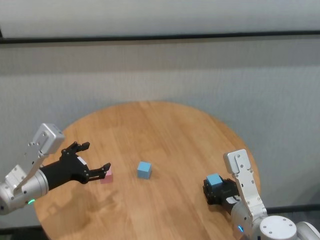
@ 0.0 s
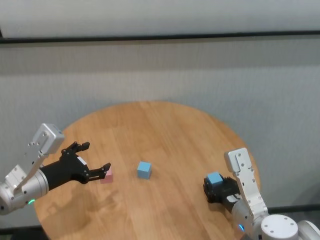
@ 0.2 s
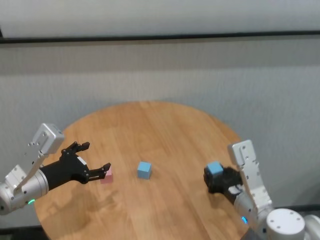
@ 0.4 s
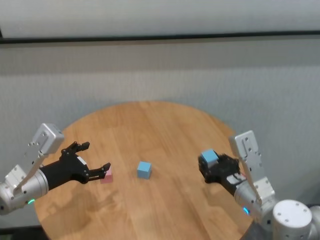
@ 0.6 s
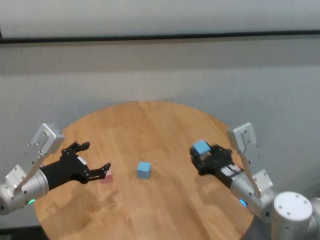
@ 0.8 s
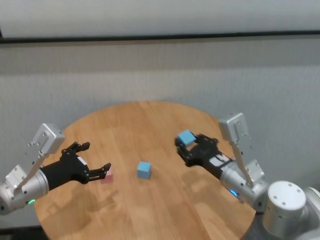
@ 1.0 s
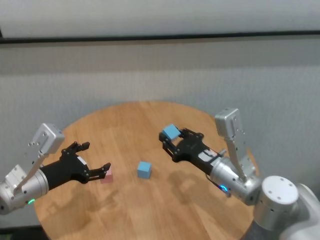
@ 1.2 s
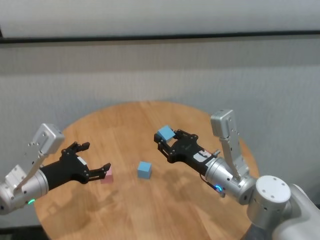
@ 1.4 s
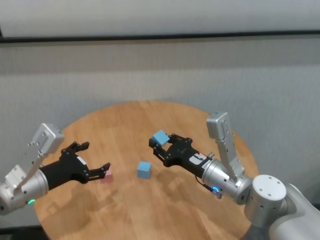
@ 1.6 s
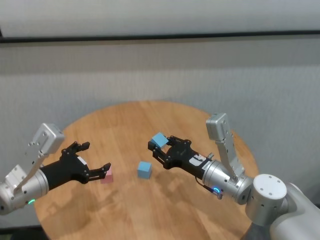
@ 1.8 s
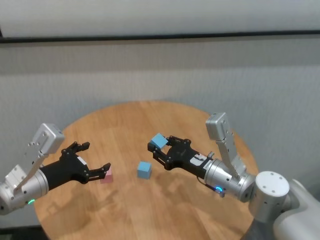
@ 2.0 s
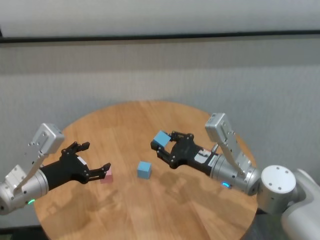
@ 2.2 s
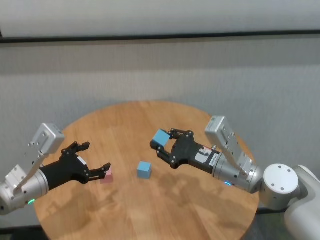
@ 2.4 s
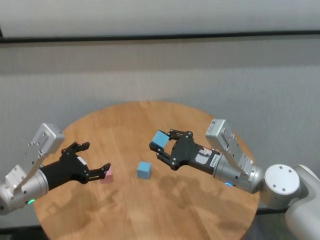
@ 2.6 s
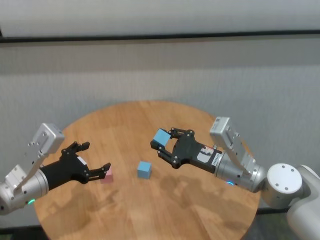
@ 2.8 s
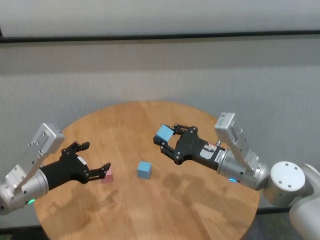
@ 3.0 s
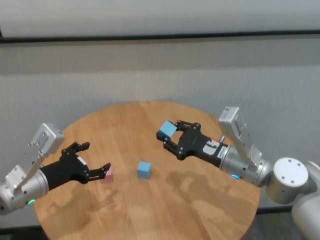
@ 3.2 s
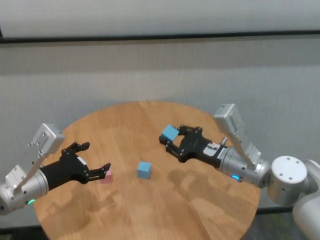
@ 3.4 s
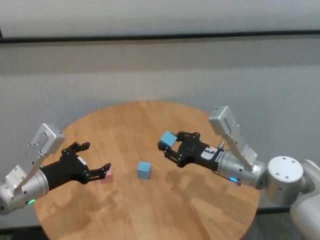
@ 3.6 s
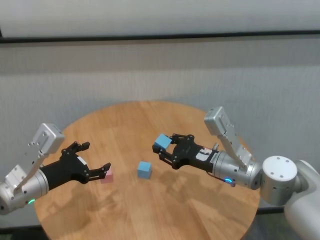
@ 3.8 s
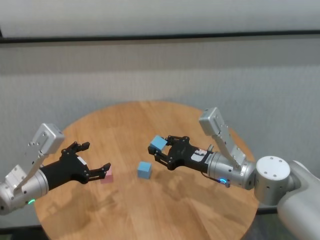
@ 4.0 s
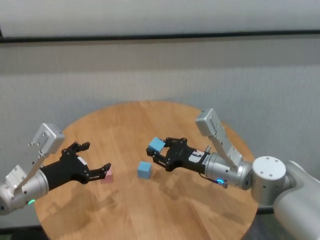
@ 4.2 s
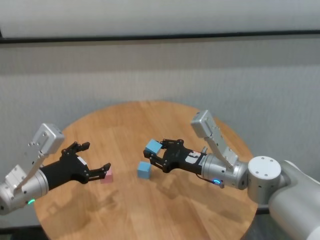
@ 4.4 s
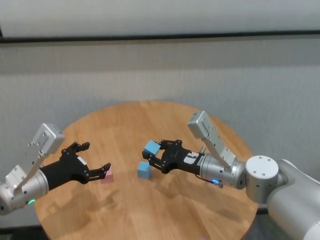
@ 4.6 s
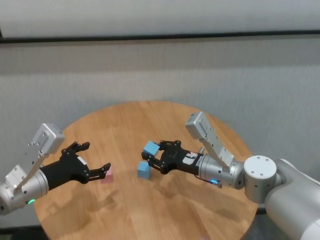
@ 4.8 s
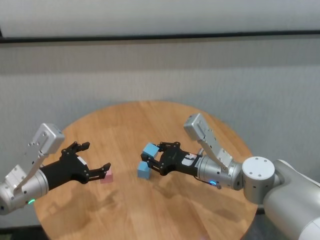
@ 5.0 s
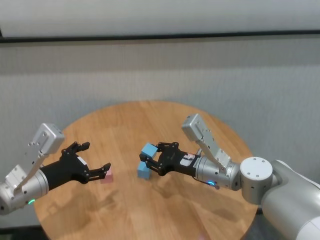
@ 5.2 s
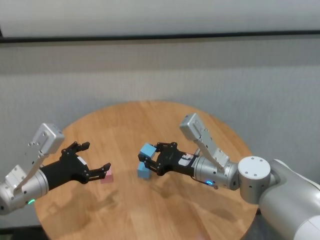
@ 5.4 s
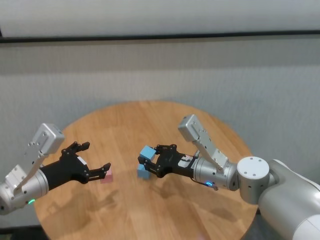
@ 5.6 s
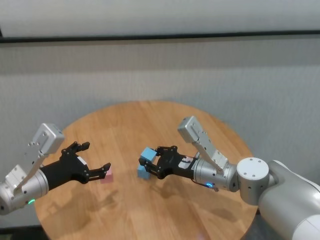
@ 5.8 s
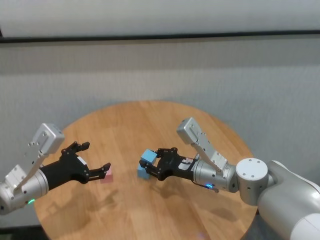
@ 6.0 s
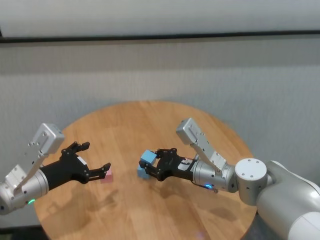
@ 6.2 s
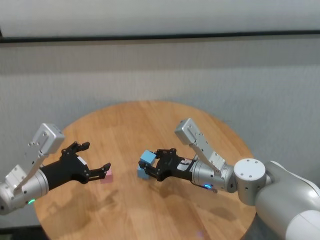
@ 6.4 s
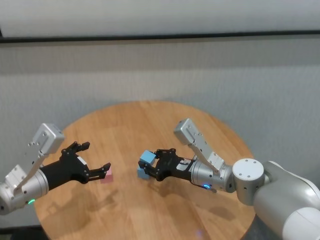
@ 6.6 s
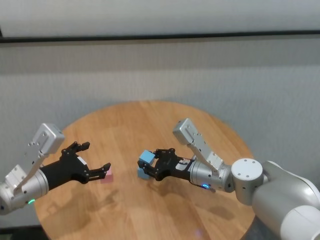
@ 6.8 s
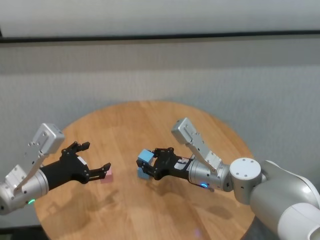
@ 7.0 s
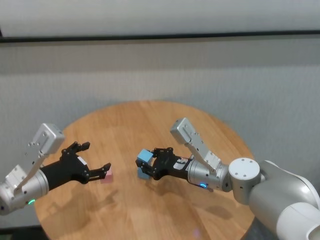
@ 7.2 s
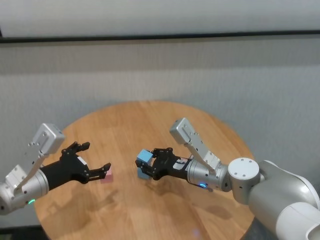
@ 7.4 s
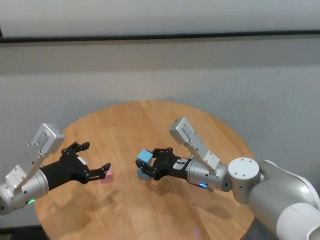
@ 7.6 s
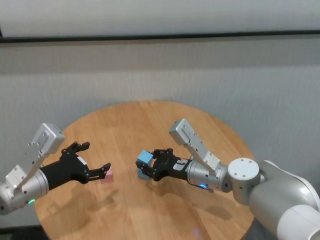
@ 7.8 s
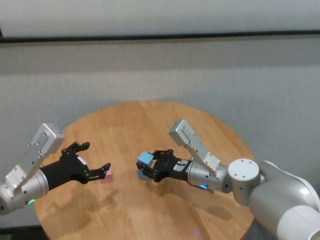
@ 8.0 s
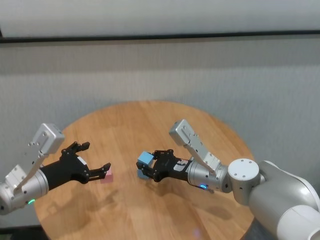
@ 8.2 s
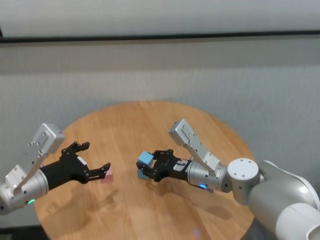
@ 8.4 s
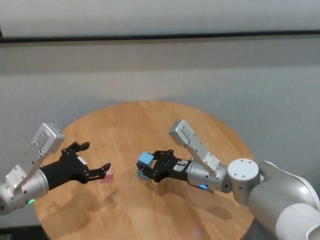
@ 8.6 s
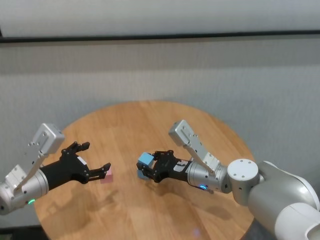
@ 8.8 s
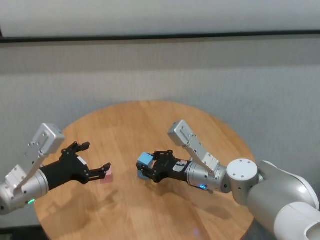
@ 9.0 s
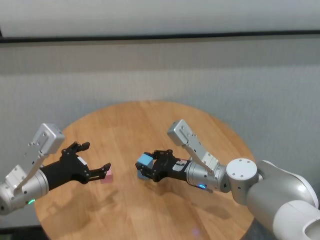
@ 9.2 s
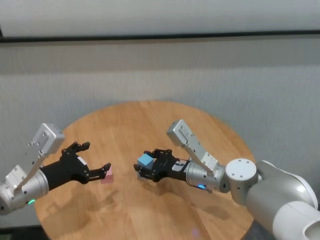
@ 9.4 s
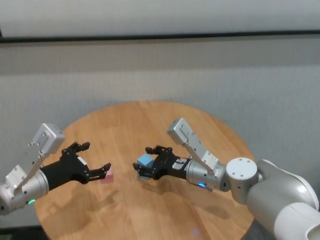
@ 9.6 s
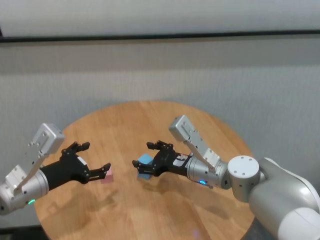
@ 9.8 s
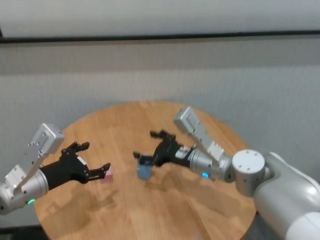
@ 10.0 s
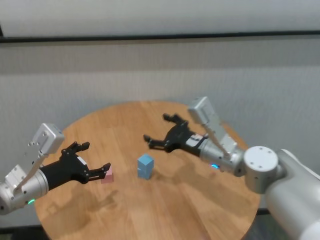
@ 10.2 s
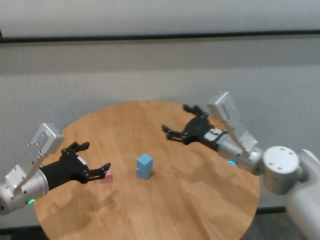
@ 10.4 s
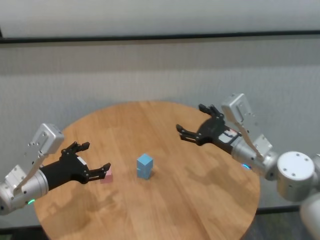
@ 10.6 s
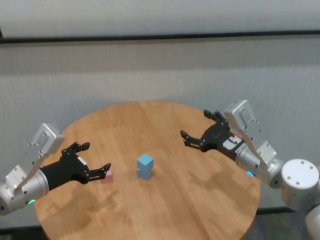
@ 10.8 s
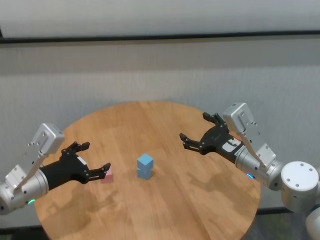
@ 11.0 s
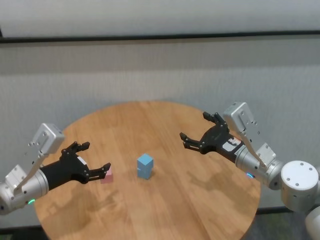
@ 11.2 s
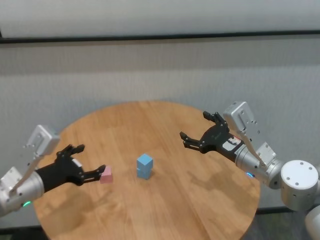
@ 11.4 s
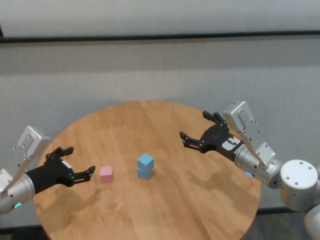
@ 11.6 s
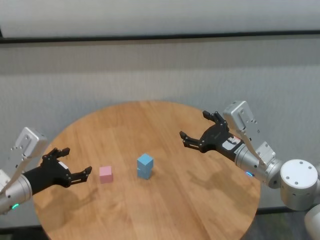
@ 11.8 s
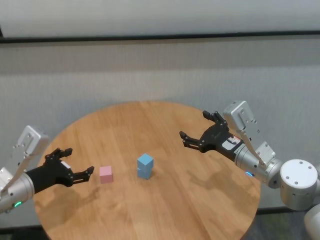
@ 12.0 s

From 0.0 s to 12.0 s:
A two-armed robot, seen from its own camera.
Task of the whole recording: stack building blocks on the table.
Step, from 0.0 s to 9.6 s: Place the blue building block on the blue building blocks with right gripper.

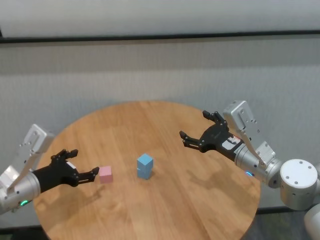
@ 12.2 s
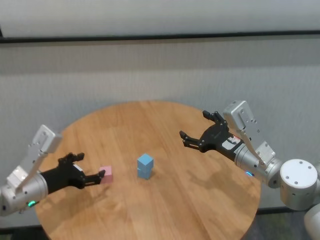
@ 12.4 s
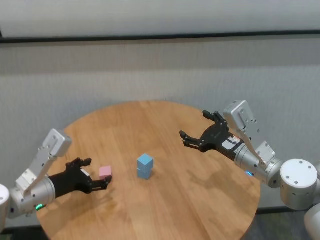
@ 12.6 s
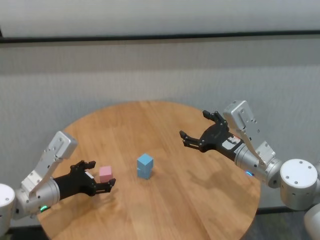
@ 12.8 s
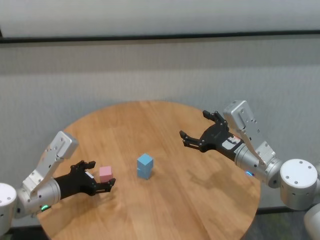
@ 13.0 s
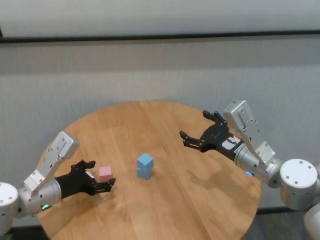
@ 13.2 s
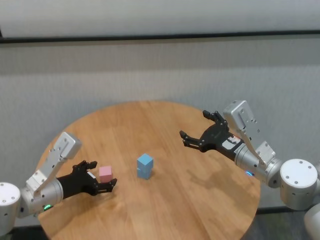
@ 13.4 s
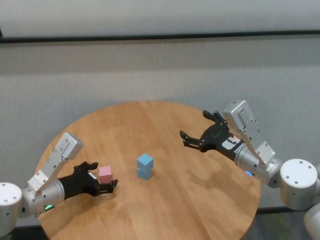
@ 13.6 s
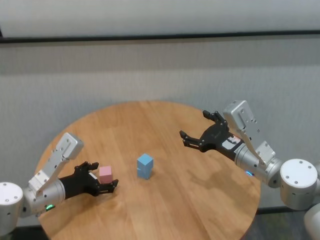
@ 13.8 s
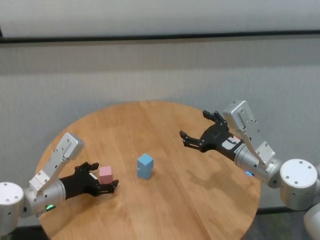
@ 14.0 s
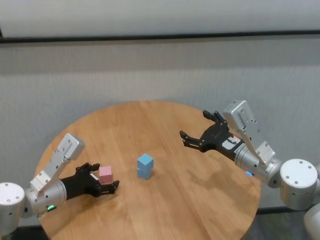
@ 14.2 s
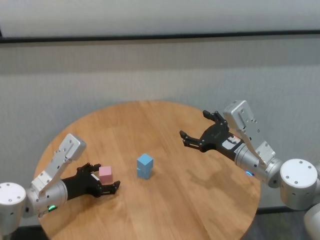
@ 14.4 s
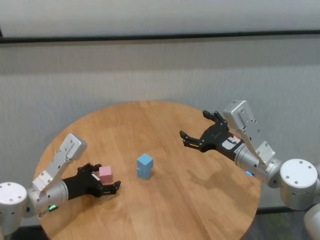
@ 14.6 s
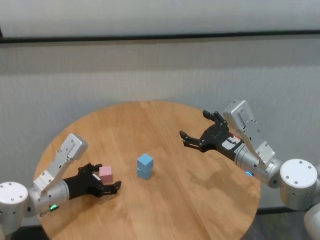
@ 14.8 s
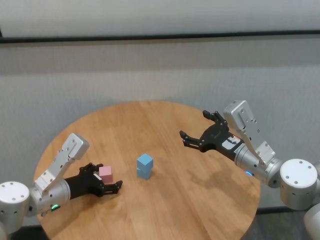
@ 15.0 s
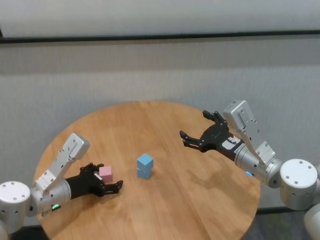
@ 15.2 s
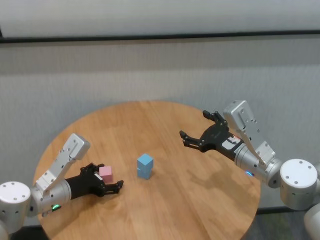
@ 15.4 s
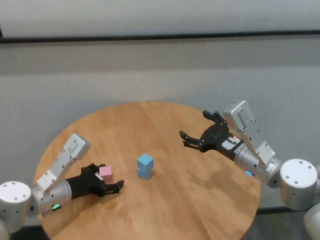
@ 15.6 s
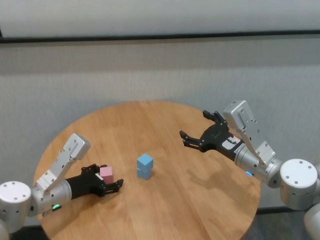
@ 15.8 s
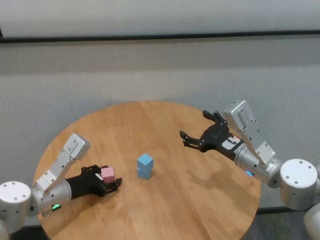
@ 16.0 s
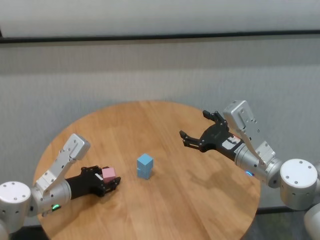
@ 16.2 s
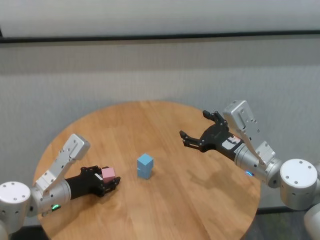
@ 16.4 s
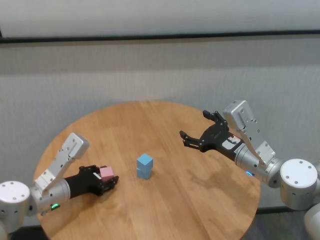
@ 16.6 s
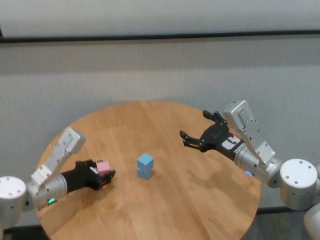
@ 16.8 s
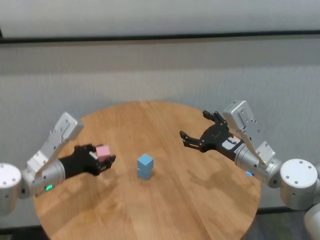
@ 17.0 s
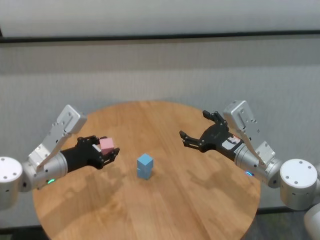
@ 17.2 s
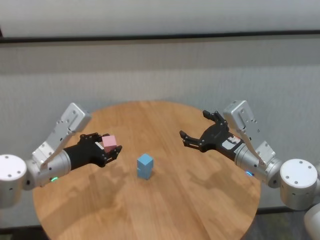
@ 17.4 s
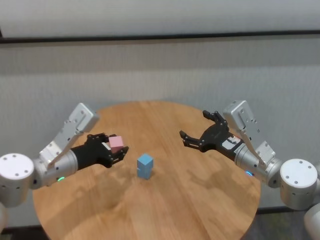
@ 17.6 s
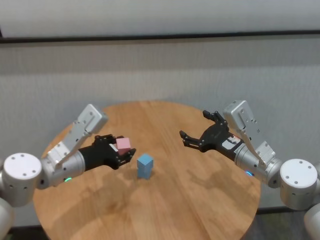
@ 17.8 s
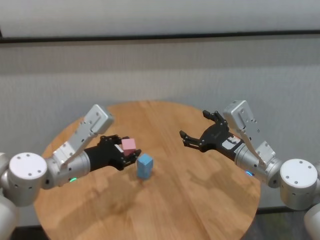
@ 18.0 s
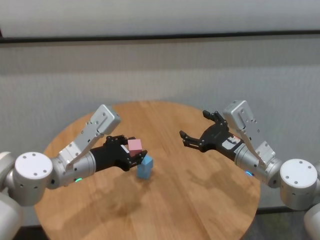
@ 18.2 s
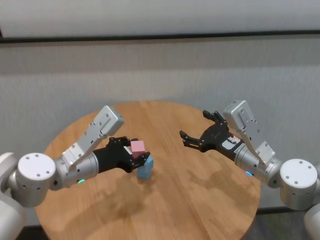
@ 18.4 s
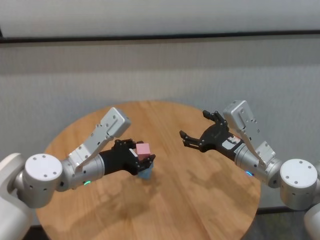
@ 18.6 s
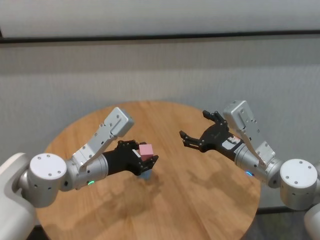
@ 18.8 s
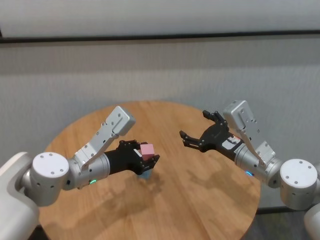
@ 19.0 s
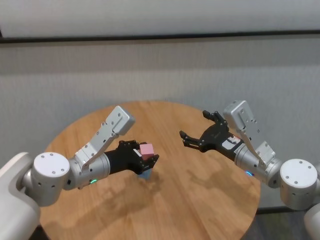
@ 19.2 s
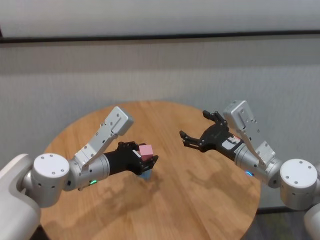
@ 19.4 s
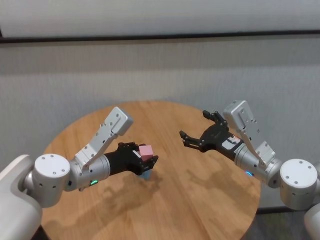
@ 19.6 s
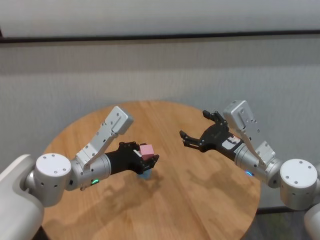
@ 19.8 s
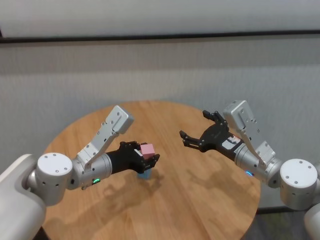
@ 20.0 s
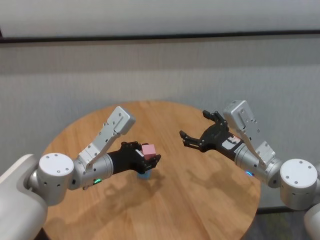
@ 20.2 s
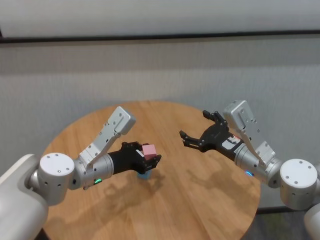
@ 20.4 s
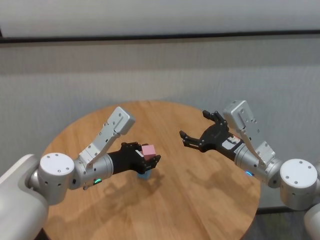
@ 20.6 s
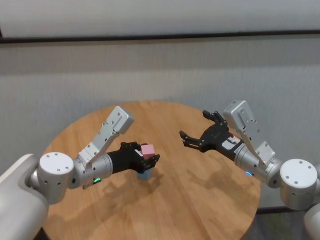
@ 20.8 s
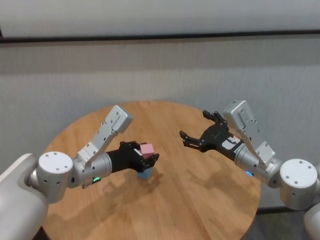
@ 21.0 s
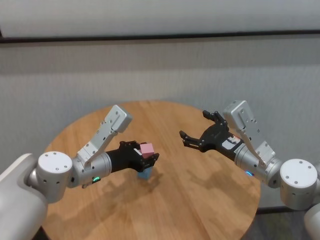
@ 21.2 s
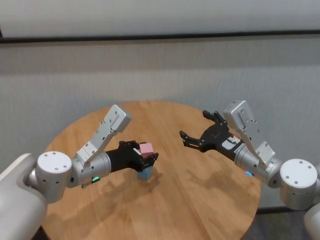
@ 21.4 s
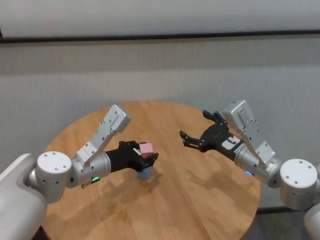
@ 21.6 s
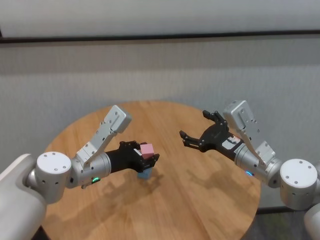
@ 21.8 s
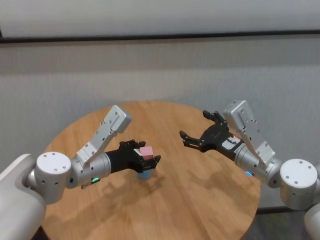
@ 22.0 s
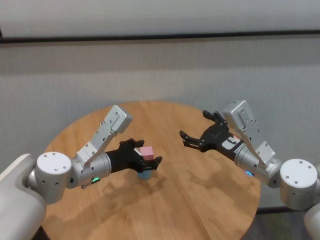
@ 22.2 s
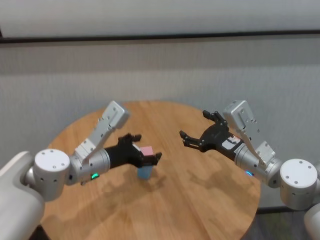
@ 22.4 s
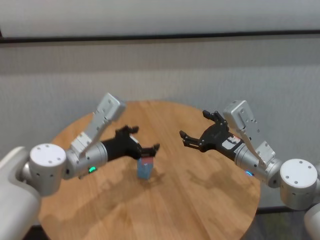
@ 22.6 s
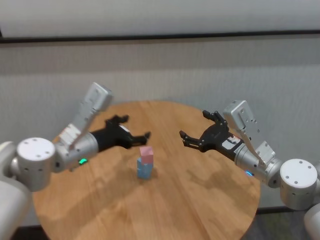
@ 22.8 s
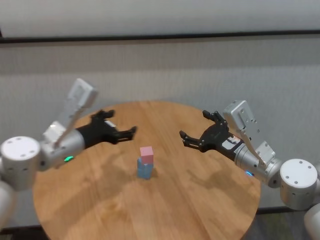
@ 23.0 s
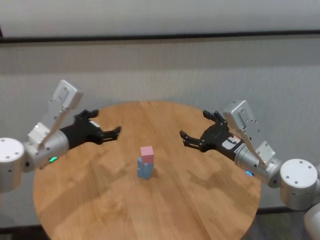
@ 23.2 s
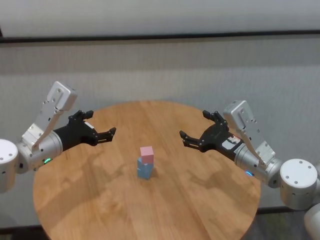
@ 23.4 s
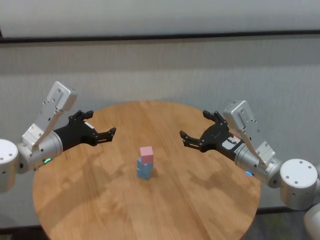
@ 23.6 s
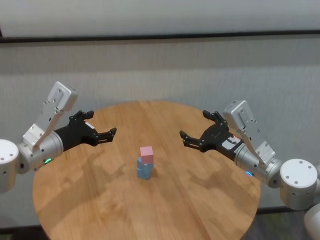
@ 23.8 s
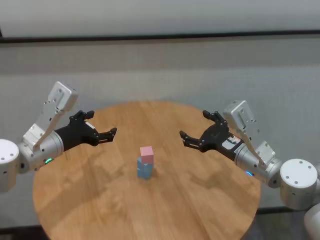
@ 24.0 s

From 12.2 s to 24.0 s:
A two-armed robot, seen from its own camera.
Task of the whole recording: stack building blocks on the table.
Step, from 12.2 s to 22.2 s: Place the pink building block on the blue building blocks with left gripper.
